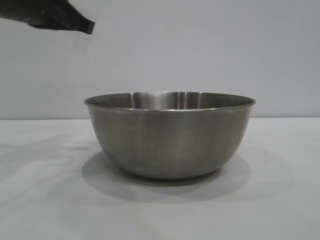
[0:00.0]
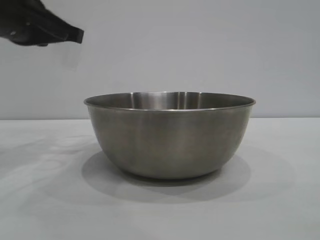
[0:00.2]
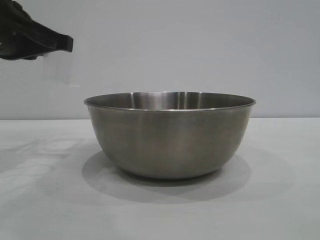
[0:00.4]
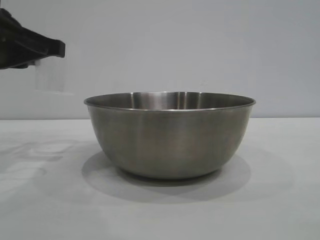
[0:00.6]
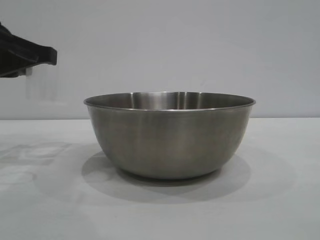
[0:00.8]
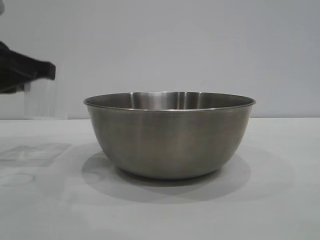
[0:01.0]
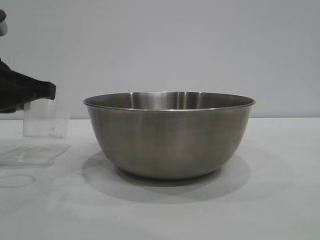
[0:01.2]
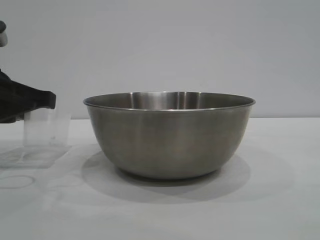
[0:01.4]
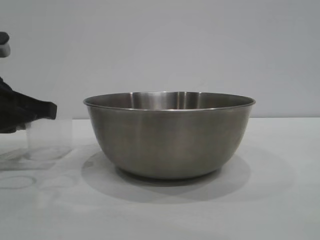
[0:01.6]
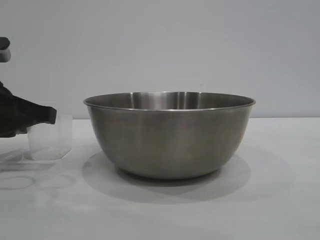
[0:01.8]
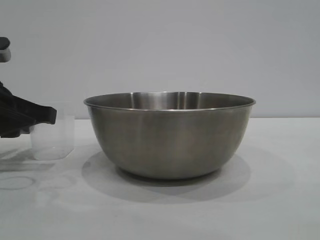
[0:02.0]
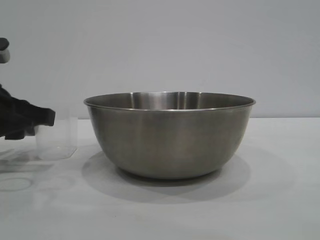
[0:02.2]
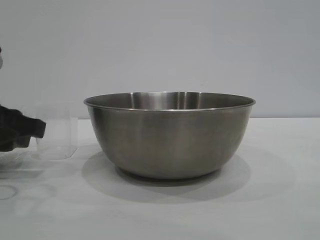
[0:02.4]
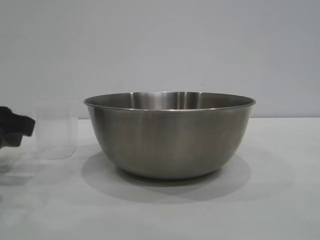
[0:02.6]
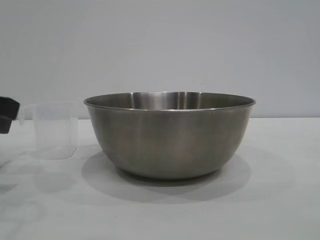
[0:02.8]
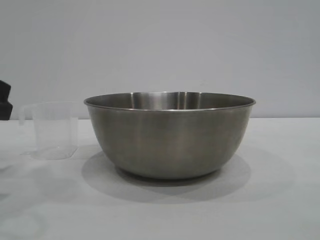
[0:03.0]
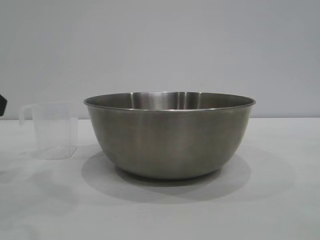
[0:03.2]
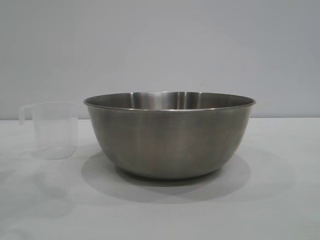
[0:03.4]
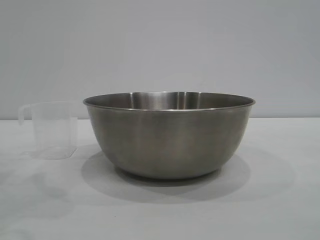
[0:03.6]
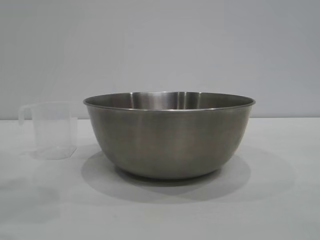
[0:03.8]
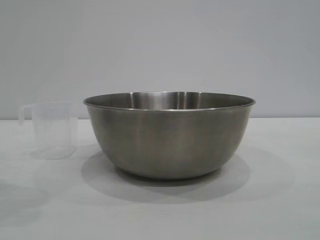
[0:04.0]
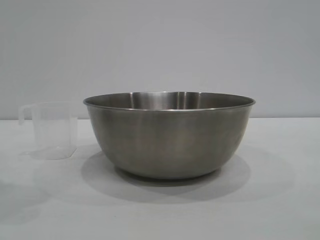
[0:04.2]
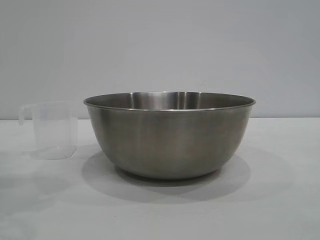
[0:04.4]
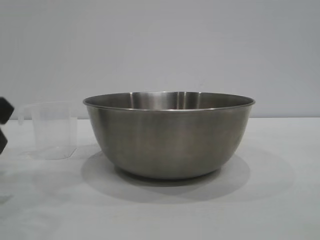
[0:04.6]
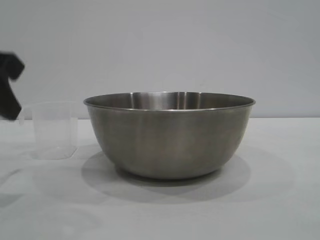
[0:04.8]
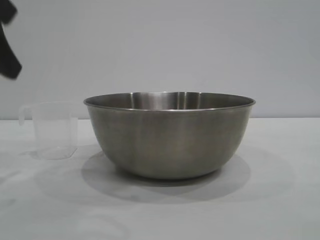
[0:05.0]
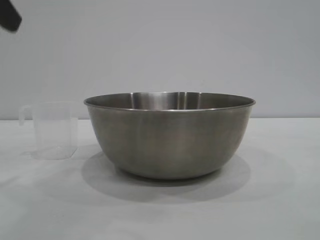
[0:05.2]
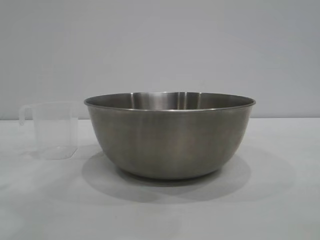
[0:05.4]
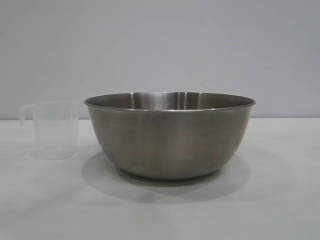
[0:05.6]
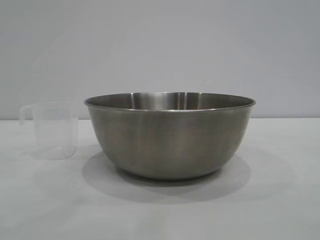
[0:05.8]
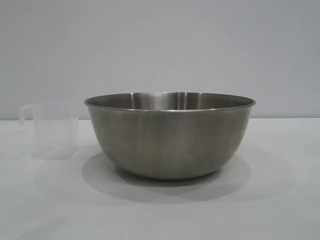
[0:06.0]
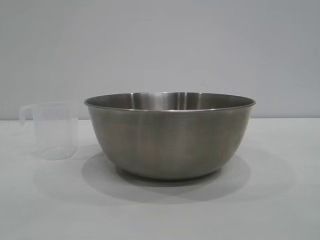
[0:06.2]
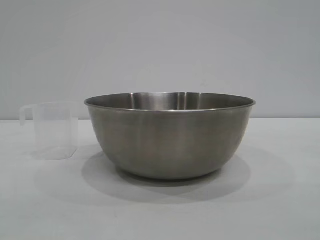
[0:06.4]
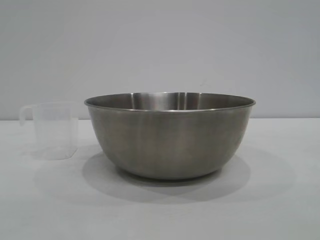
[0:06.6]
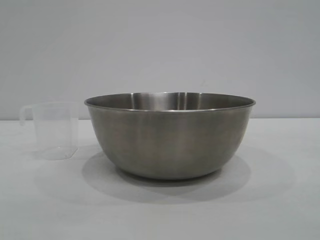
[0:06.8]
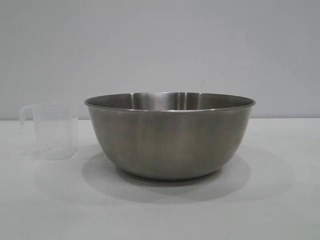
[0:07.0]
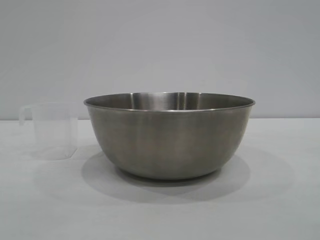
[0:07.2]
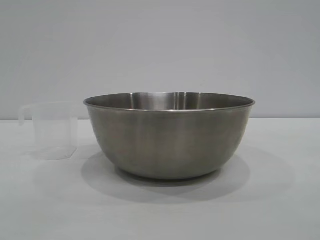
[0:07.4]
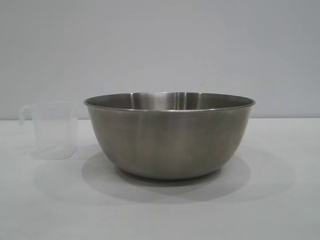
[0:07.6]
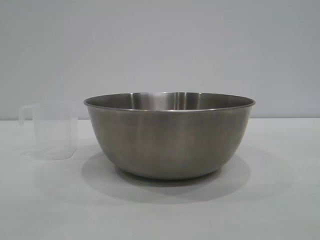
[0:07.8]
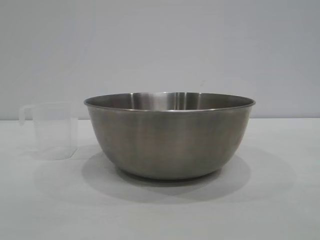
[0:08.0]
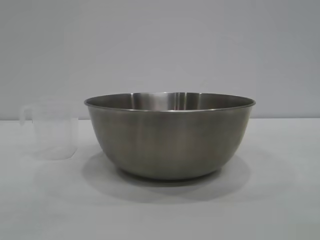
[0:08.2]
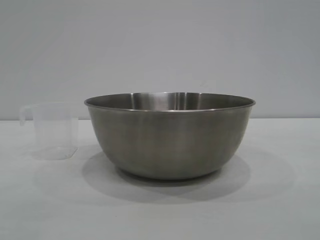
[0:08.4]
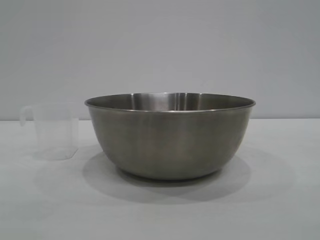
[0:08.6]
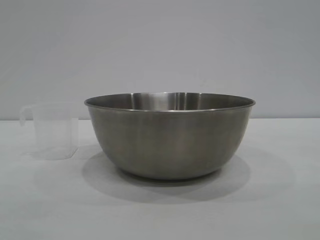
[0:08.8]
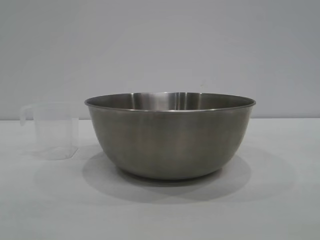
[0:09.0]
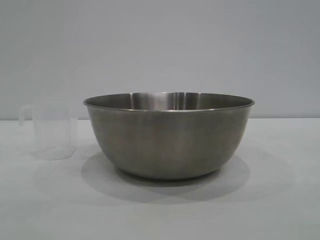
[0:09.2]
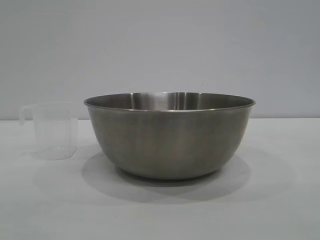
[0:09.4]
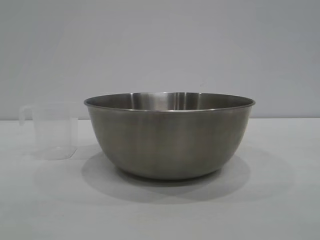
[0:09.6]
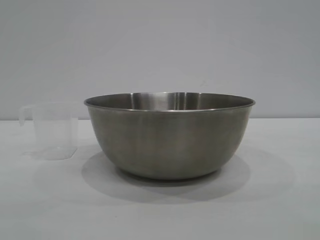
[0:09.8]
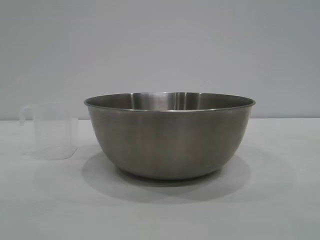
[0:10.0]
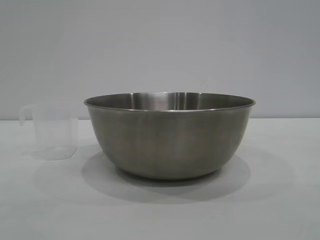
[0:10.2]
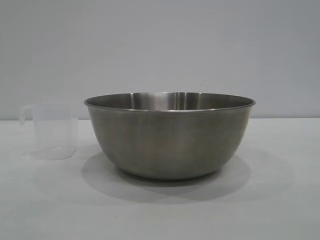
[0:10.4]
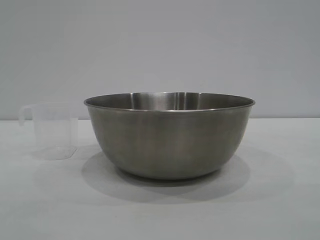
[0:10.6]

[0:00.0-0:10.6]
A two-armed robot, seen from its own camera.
Task of the whole recording: the right gripper grasp the rice container and place it in the center of the table, the left gripper grasp the rice scoop and pour the rice into the rice container.
Step, 0:00.0 to 0:03.0: Place the cup on the table with the left gripper.
